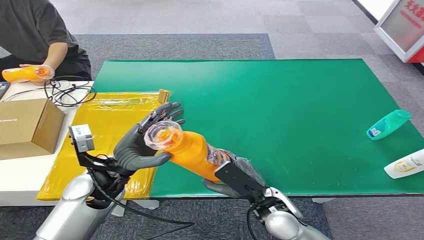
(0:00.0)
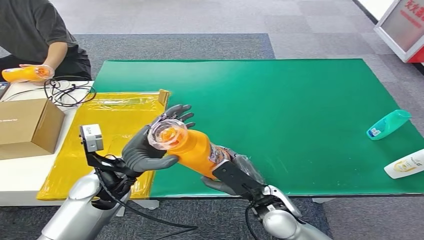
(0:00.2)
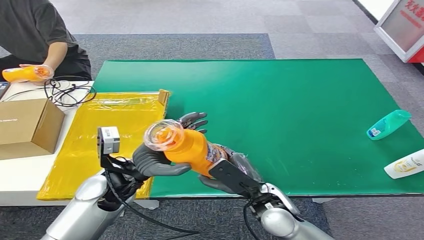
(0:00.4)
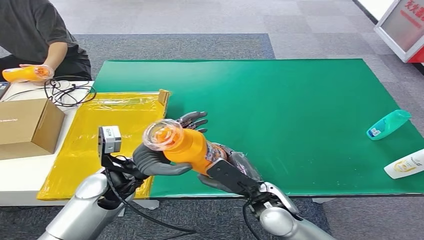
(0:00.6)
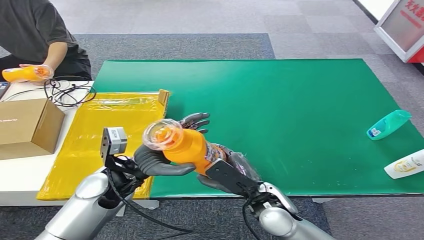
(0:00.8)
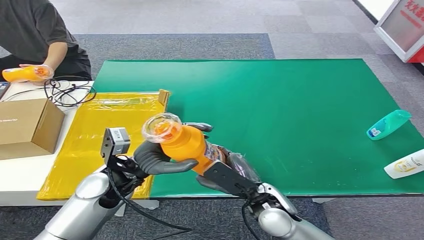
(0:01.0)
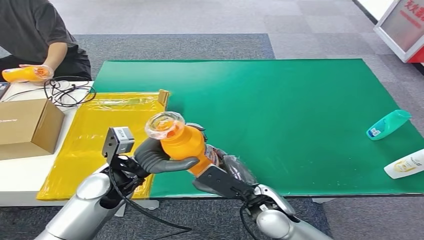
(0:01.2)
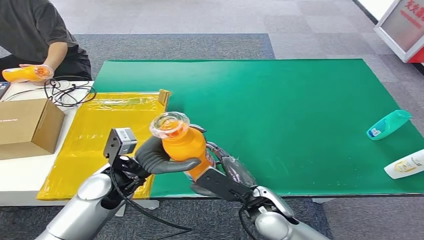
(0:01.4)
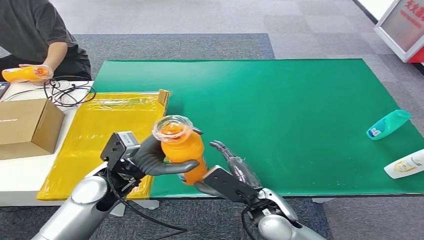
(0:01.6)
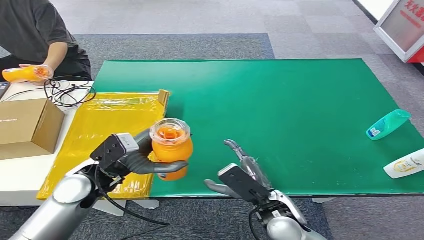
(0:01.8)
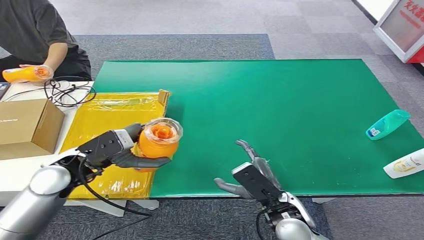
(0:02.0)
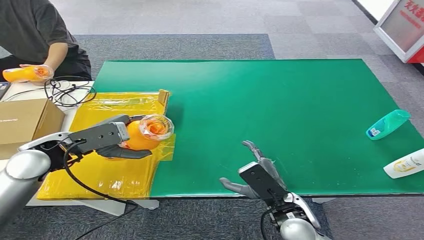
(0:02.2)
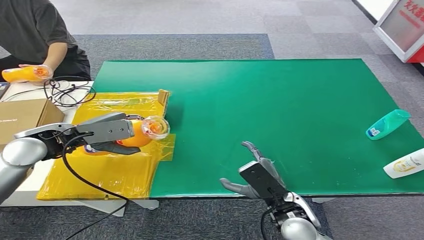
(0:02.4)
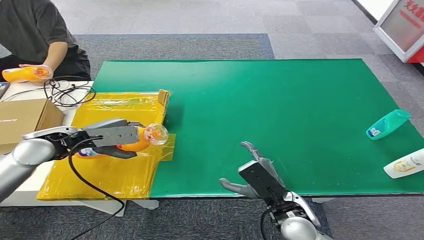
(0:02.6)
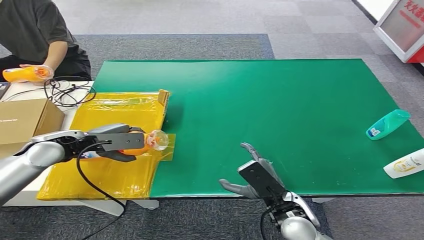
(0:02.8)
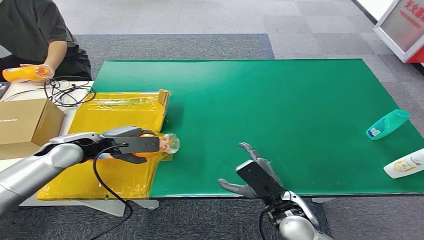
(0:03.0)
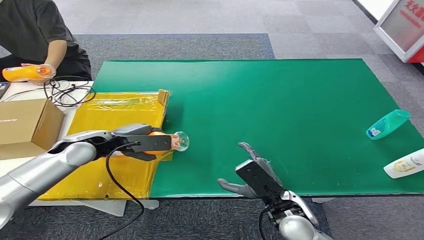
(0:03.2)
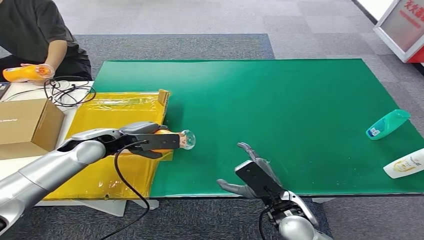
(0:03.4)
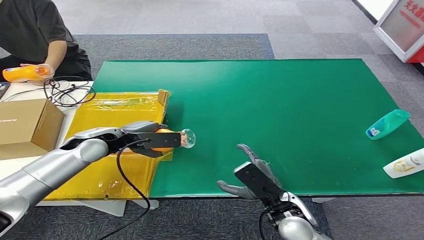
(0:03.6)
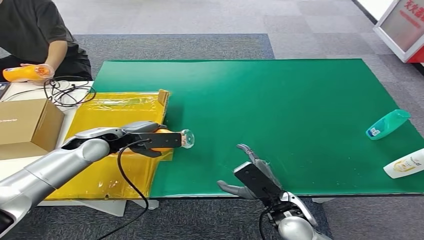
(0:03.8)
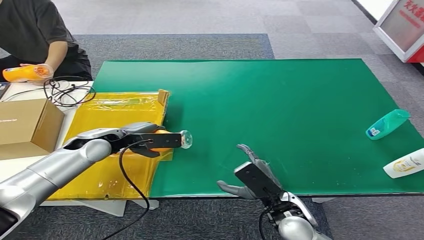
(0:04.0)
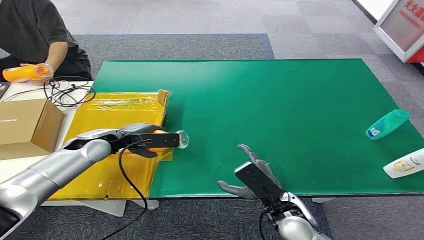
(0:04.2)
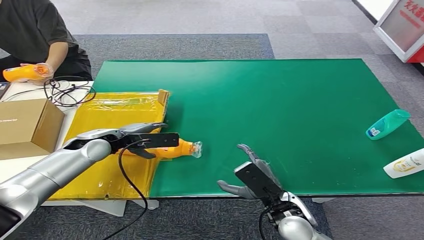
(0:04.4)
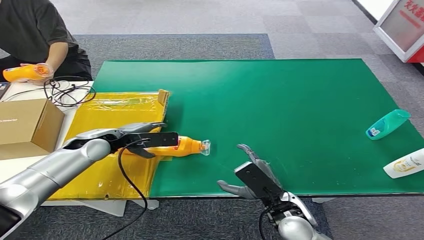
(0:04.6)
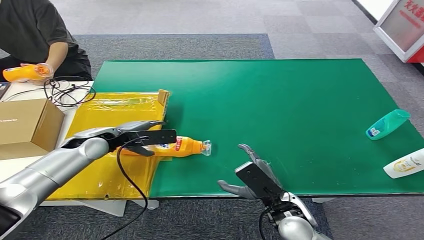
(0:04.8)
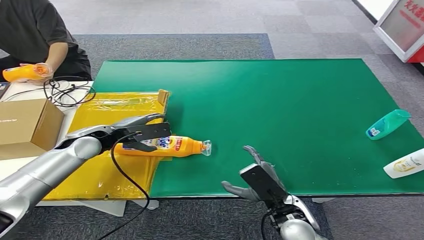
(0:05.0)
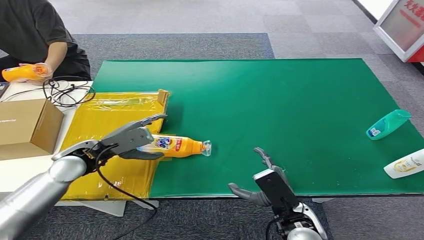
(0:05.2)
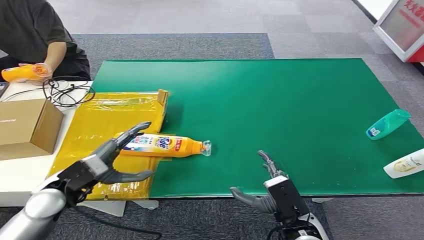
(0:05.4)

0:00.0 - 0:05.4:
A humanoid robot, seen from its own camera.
Step, 0:00.0 - 0:05.2: Turn the bottle to the front side.
0:00.0 - 0:01.4: There are only small adjustments of the hands.
0:01.4 - 0:02.8: The right hand goes approximately 5 cm to the right; the left hand goes about 20 cm to the left, forward and upward.
0:02.8 - 0:04.0: The left hand is displaced to the right by roughly 10 cm.
0:04.0 - 0:05.4: The left hand moves backward, approximately 15 cm. Meanwhile the right hand ends up about 5 cm from where it was.
